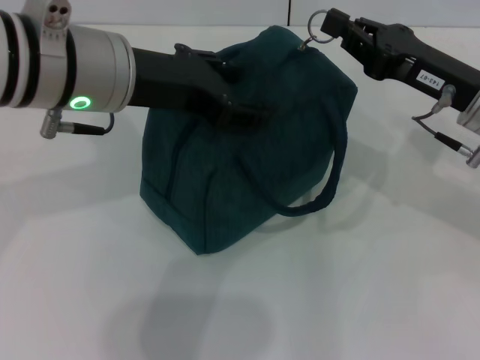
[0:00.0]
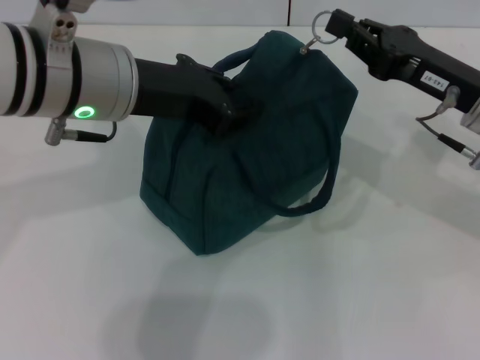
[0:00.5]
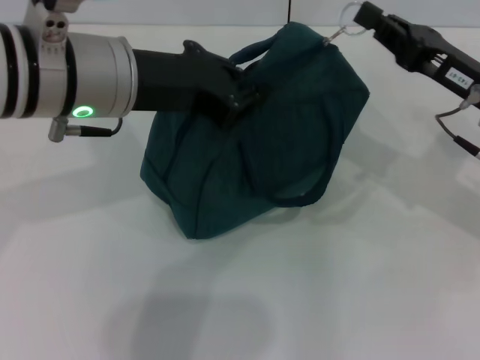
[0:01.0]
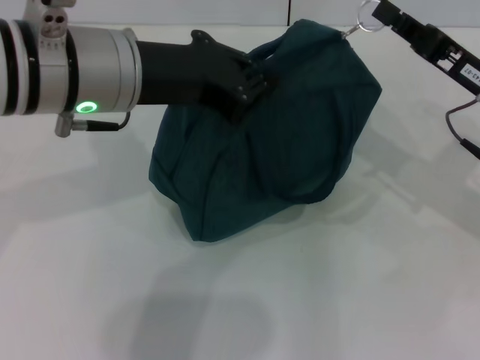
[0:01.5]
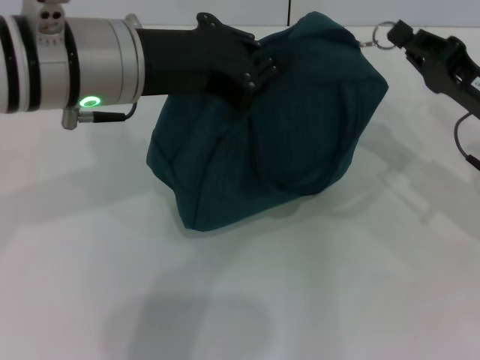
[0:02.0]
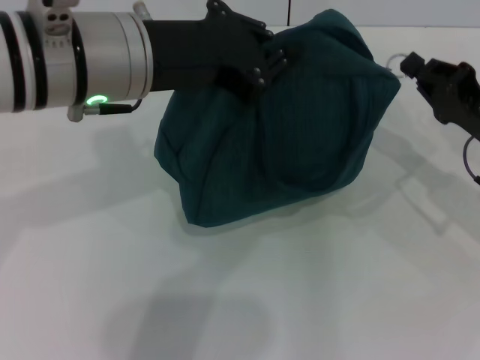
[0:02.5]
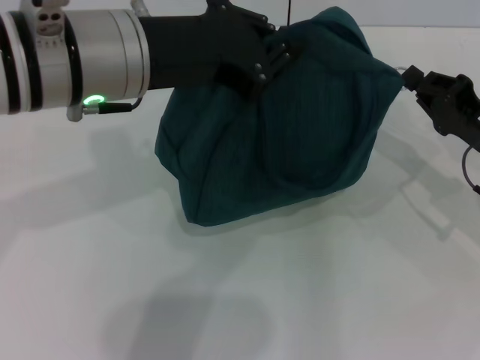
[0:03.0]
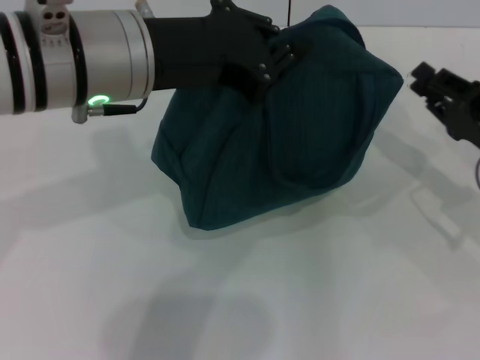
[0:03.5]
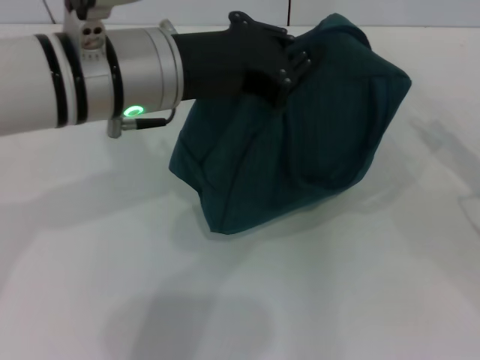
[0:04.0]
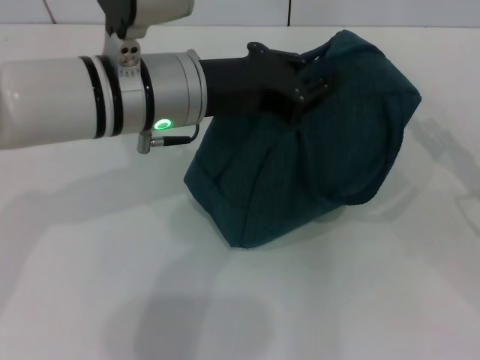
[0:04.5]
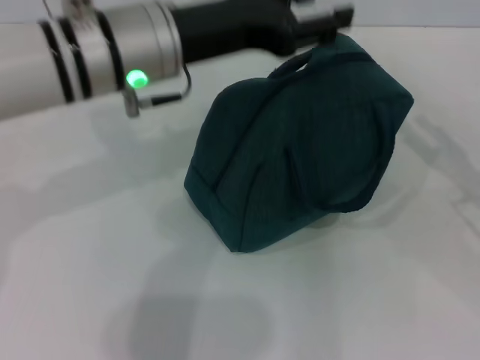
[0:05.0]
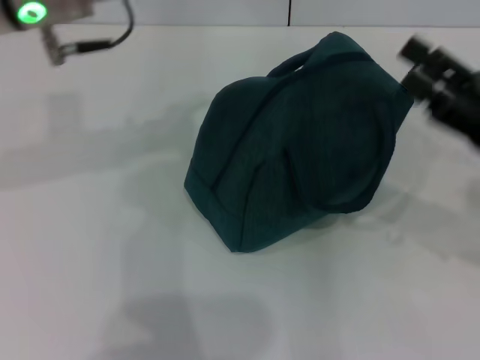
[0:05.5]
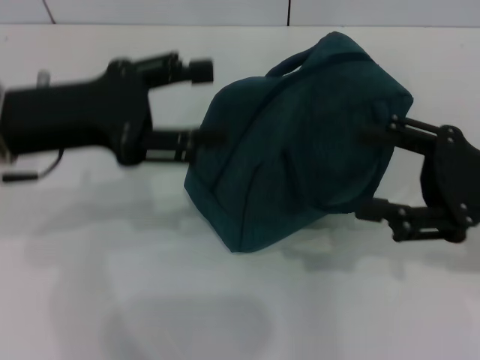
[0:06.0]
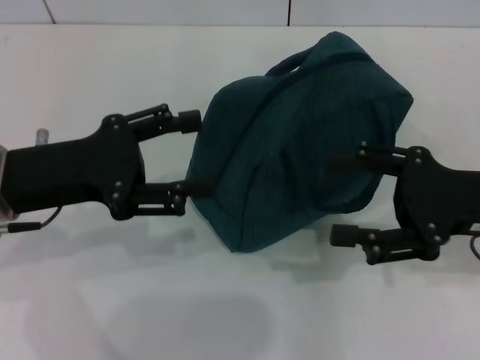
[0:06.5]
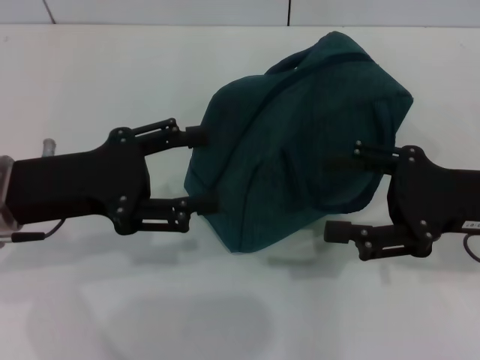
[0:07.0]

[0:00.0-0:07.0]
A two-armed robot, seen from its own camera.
Step, 0:00.0 to 0:03.0: Zip up the lunch bag with your right hand.
Step, 0:03.5 to 0:04.5: Hold the lunch bag with your left hand.
0:00.0 to 0:02.0: The right gripper shifts by some 5 cm. The left gripper closes up.
0:02.0 to 0:03.5: The grippers stay close to where they were, moving slightly.
0:03.5 to 0:05.0: The left gripper opens its fingers. Meanwhile the right gripper shifts by some 5 cm, and opens.
0:05.0 to 0:07.0: The right gripper is displaced to the left by some 10 cm, while the left gripper travels to the left, backward and downward by approximately 15 cm, and opens.
